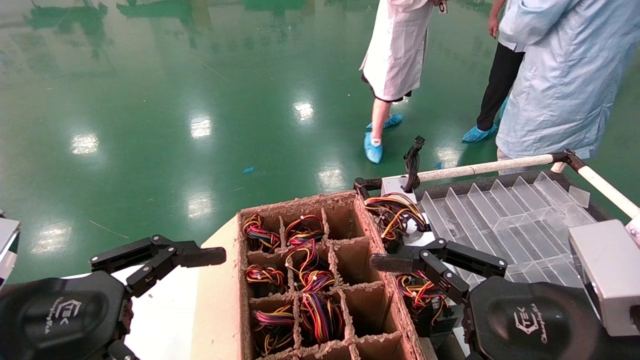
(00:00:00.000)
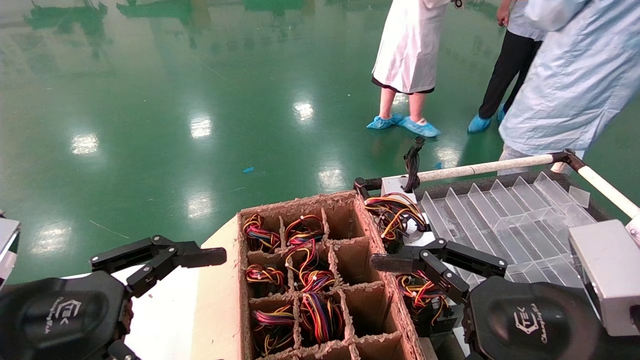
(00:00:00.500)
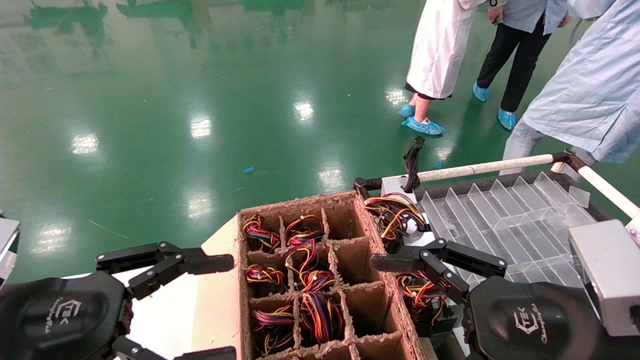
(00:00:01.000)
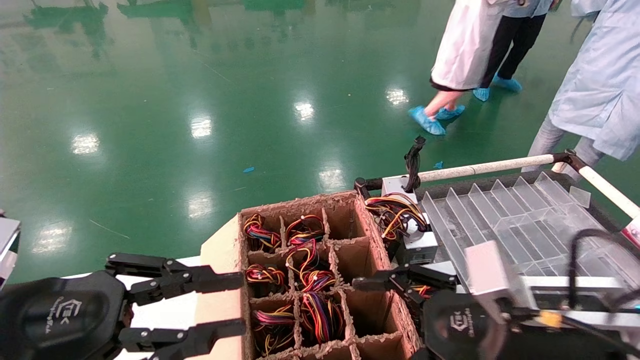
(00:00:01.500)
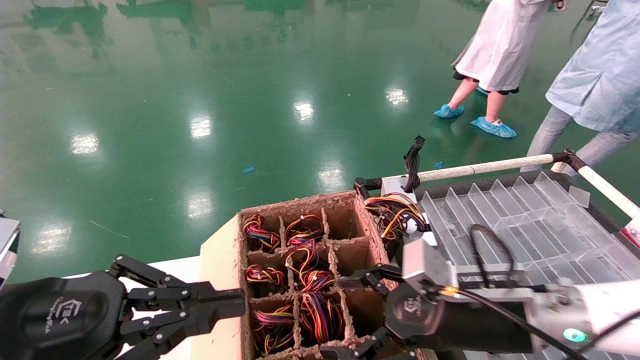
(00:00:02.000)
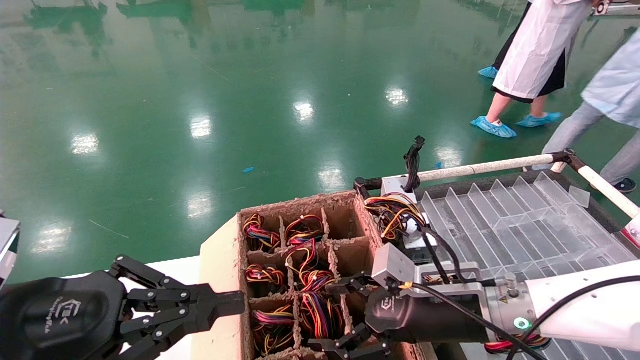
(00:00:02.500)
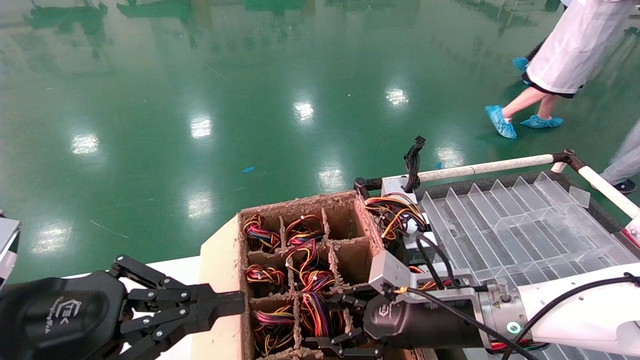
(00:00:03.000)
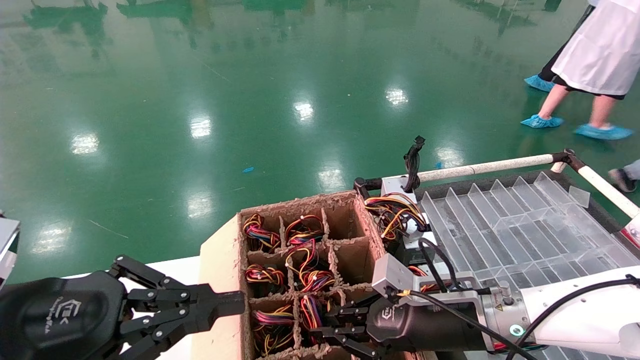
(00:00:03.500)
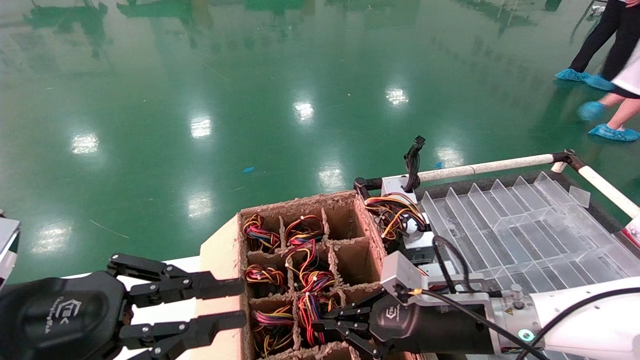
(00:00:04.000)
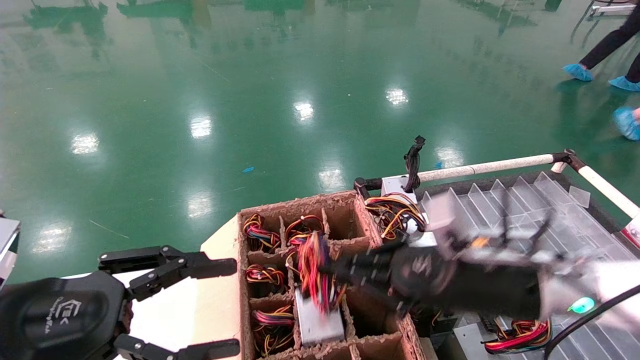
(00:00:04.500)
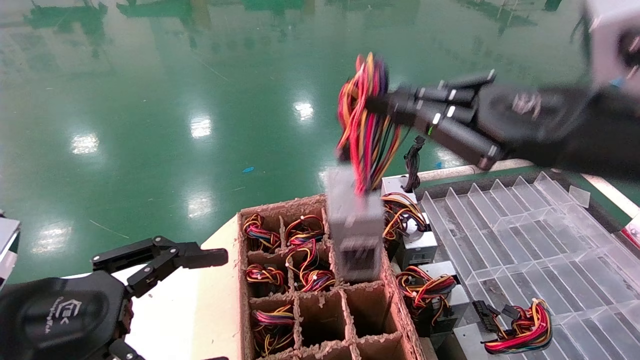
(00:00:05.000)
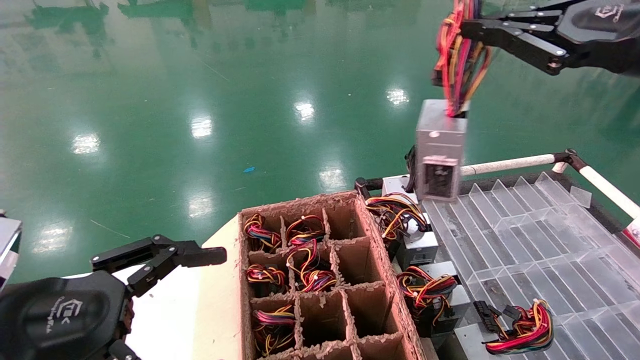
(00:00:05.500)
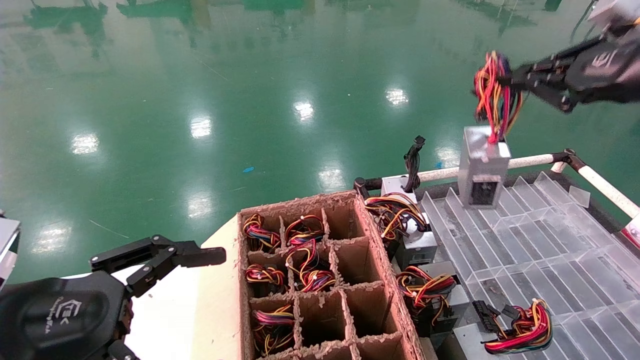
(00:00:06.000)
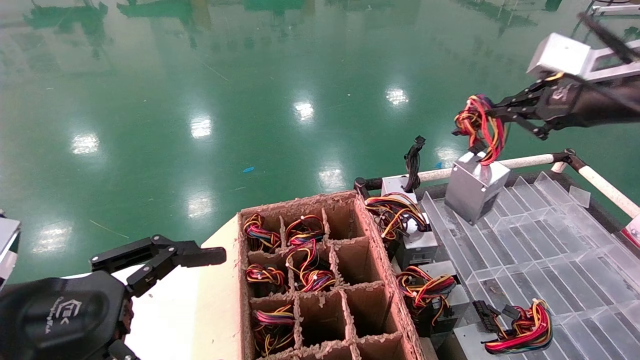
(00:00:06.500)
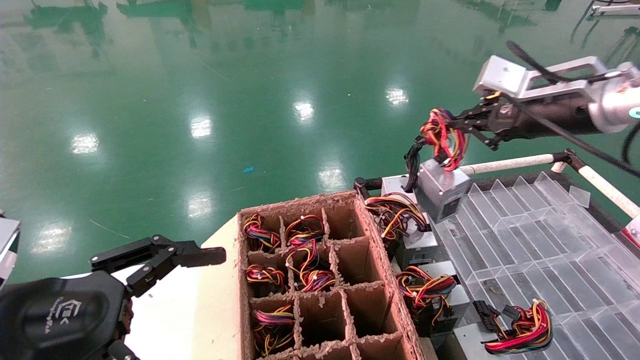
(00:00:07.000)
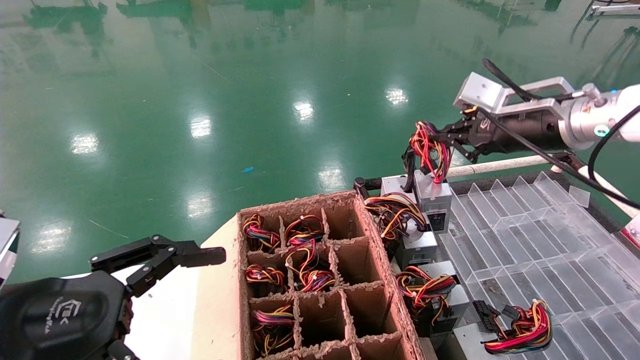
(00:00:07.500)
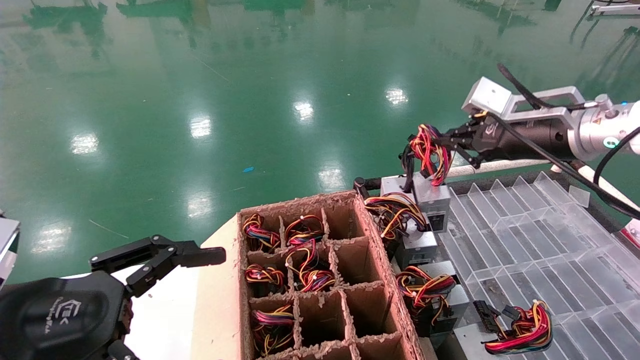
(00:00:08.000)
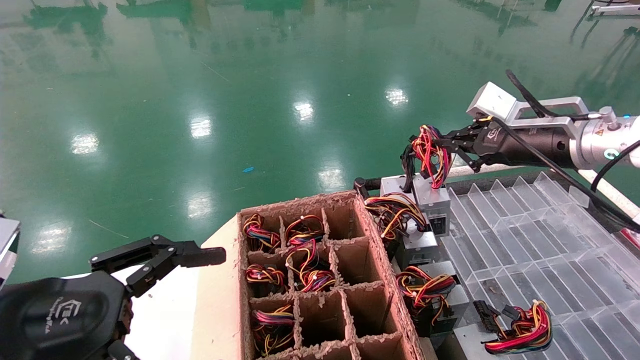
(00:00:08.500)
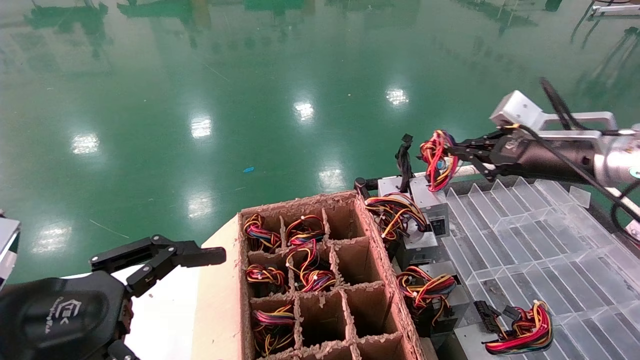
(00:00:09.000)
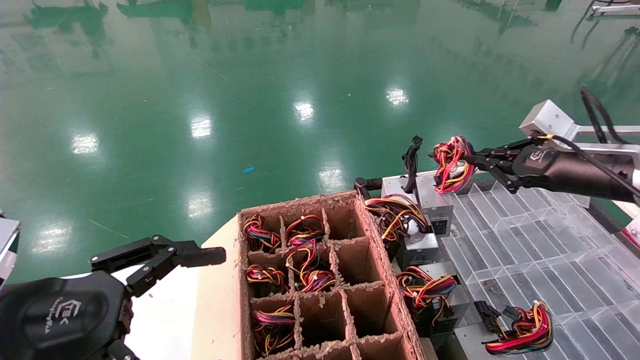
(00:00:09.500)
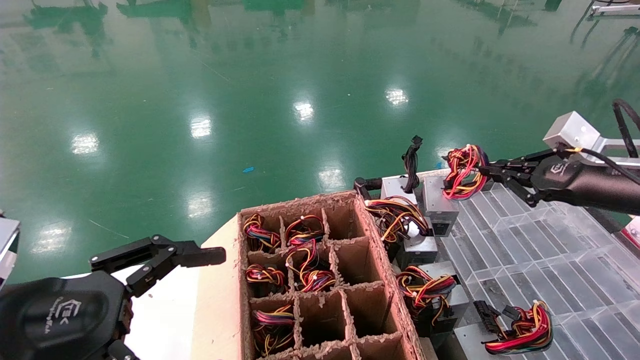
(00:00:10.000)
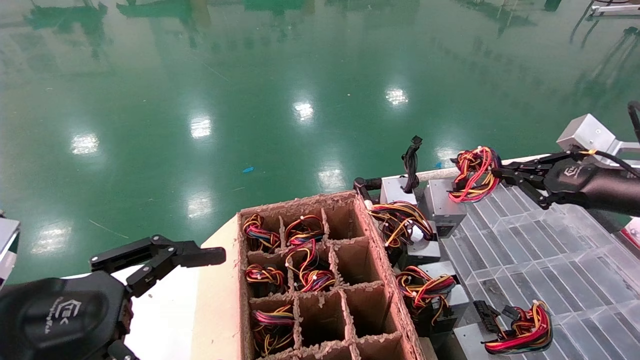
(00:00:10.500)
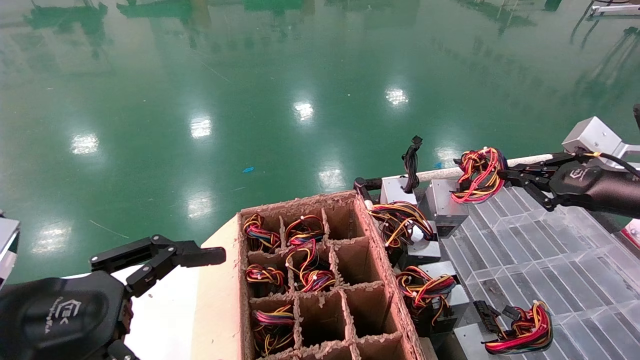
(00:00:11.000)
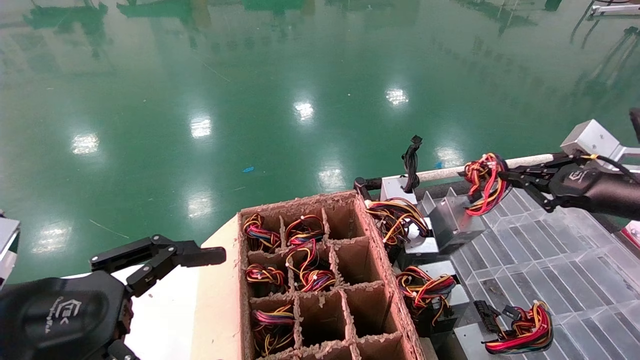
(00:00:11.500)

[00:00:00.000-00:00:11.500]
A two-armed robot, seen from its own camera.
Step, 00:00:01.000 to 00:00:03.500: Grab and lift the power supply from the large box.
00:00:00.000 to 00:00:02.000: The right gripper is displaced forward and downward by some 15 cm; the left gripper closes up.
00:00:02.000 to 00:00:04.000: The right gripper shifts by approximately 5 cm, and closes.
00:00:04.000 to 00:00:06.000: The left gripper opens up. Meanwhile the right gripper moves upward and to the right, some 35 cm.
00:00:06.000 to 00:00:07.500: The right gripper is displaced forward, to the left and downward by approximately 15 cm.
00:00:07.500 to 00:00:09.500: The right gripper is displaced to the right and downward by some 10 cm.
00:00:09.500 to 00:00:11.500: The grippers make only small movements.

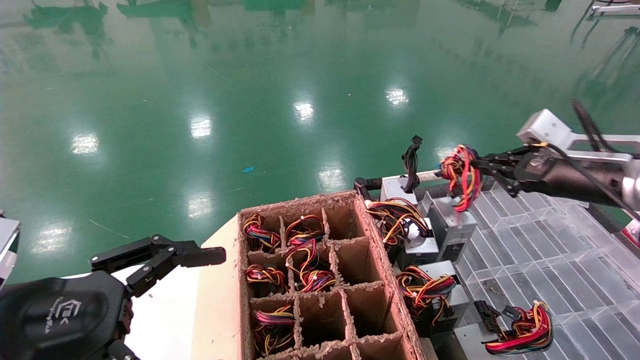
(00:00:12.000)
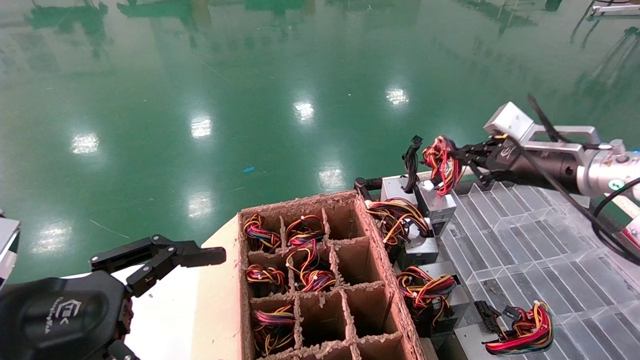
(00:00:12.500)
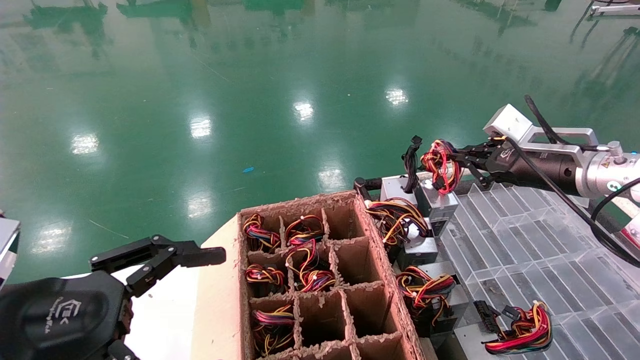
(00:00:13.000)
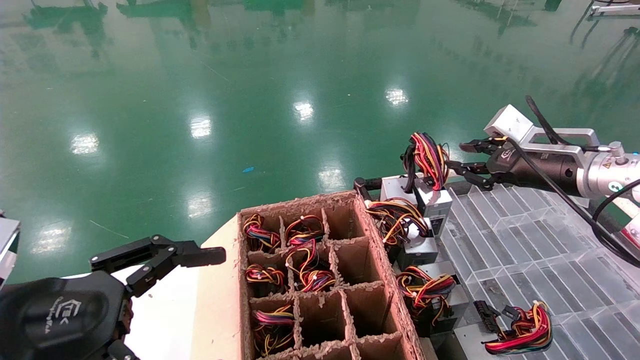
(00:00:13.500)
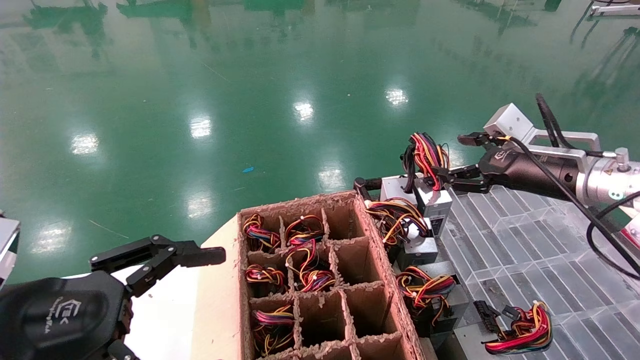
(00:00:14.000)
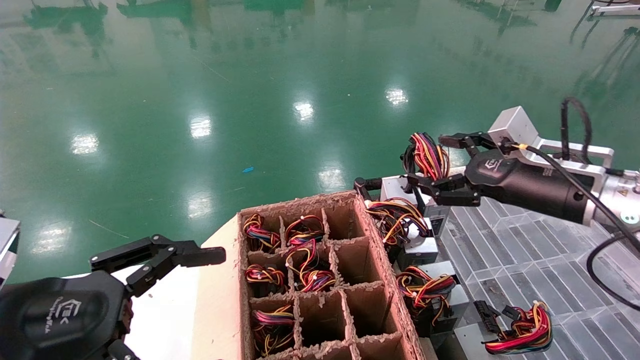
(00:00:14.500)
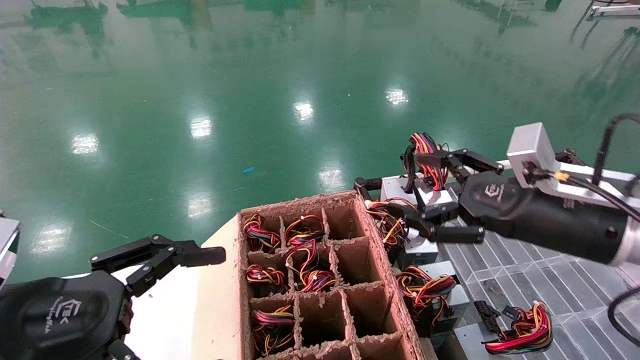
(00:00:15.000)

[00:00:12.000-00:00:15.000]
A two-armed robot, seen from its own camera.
00:00:12.000 to 00:00:13.500: There are only small adjustments of the grippers.
00:00:13.500 to 00:00:15.000: The right gripper travels backward and to the left by approximately 10 cm, and opens its fingers.
